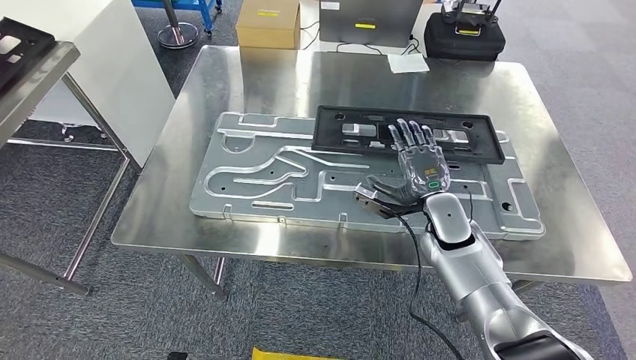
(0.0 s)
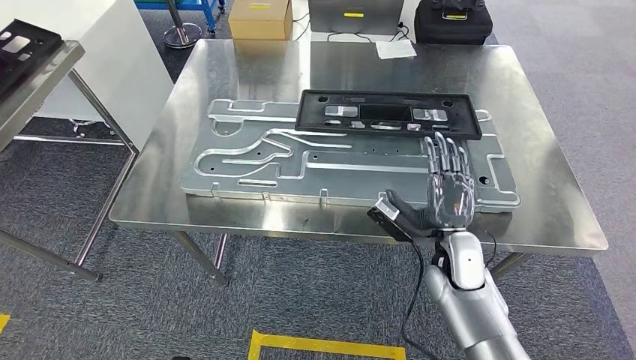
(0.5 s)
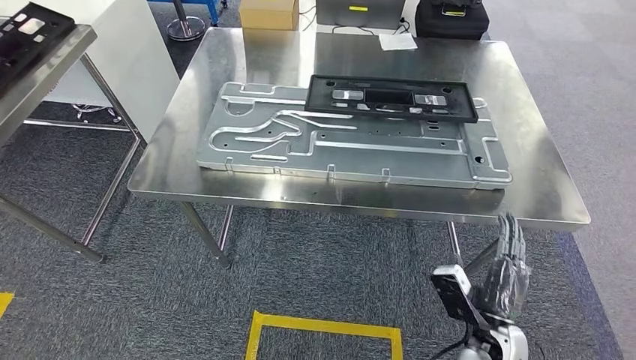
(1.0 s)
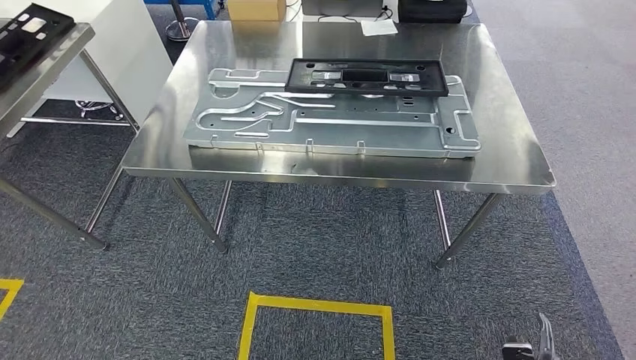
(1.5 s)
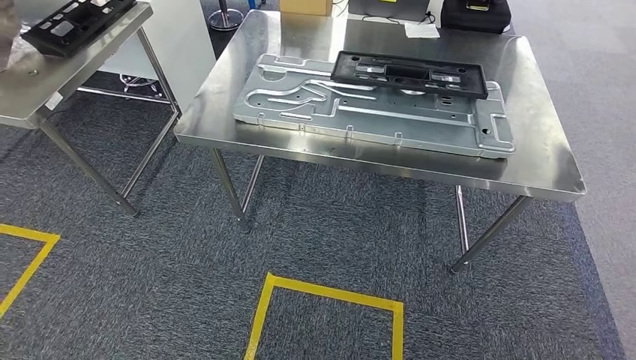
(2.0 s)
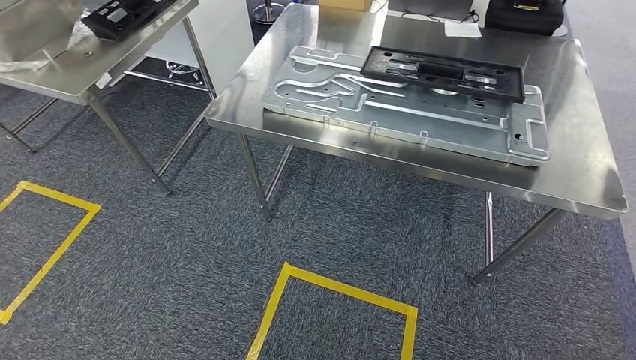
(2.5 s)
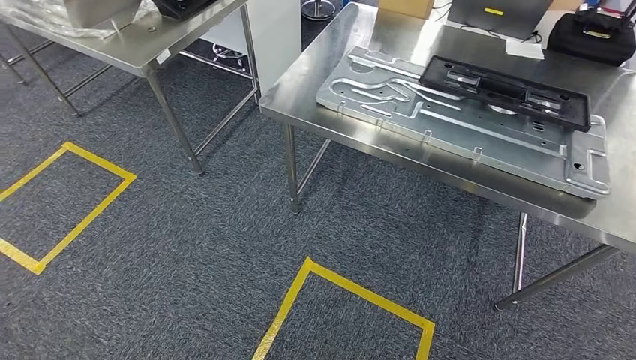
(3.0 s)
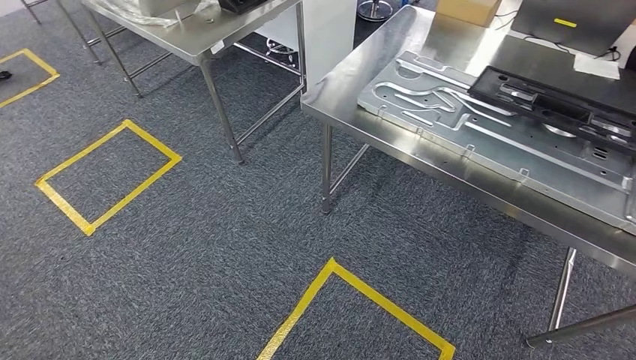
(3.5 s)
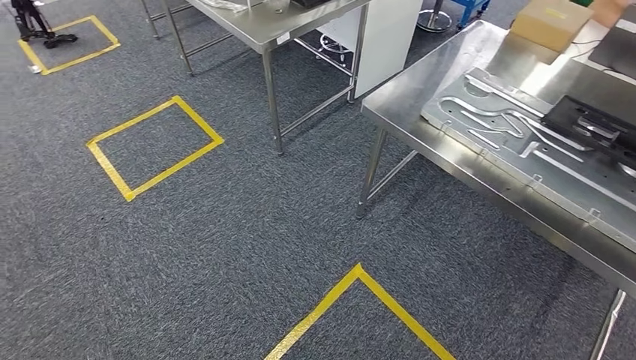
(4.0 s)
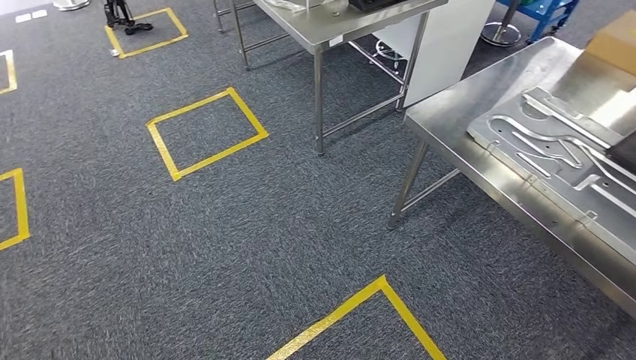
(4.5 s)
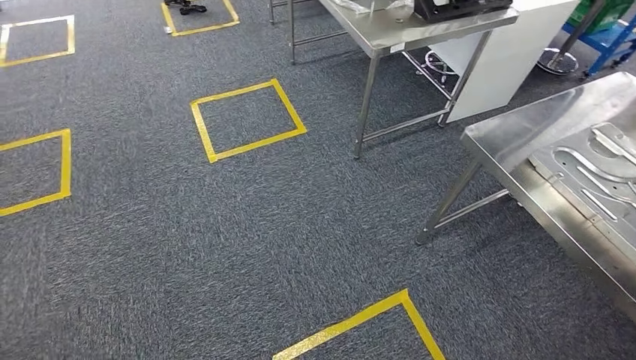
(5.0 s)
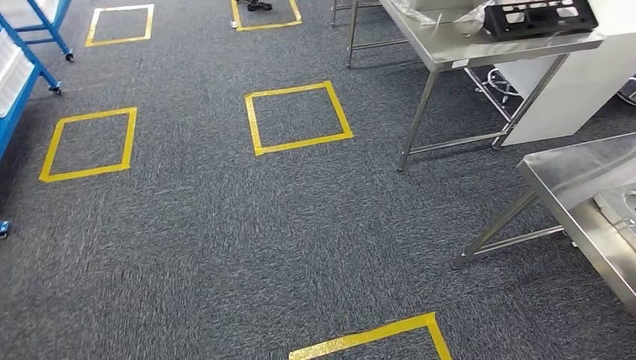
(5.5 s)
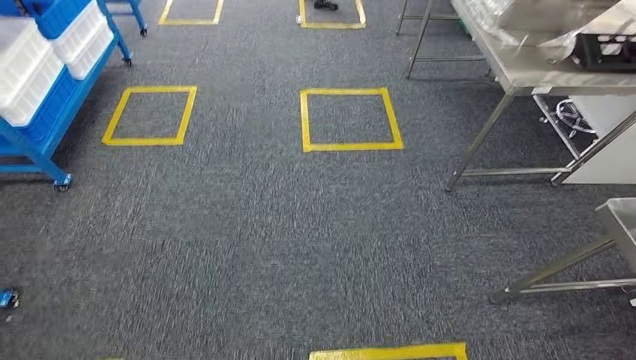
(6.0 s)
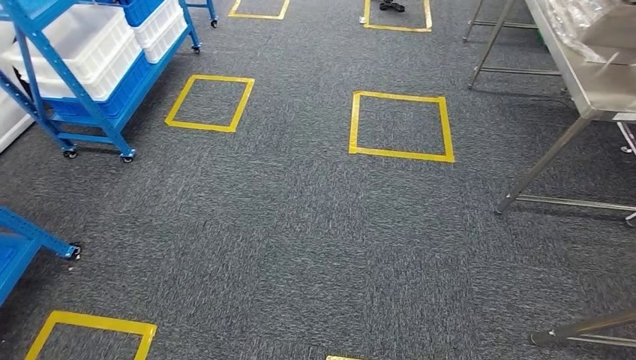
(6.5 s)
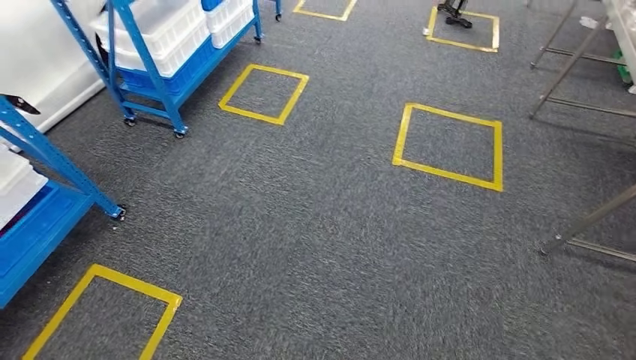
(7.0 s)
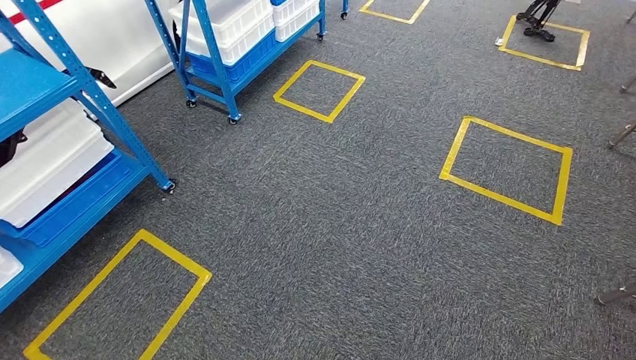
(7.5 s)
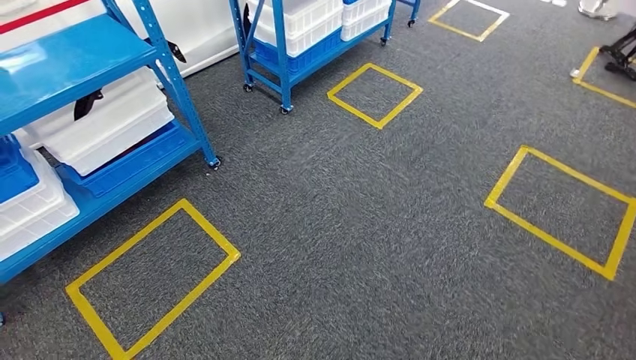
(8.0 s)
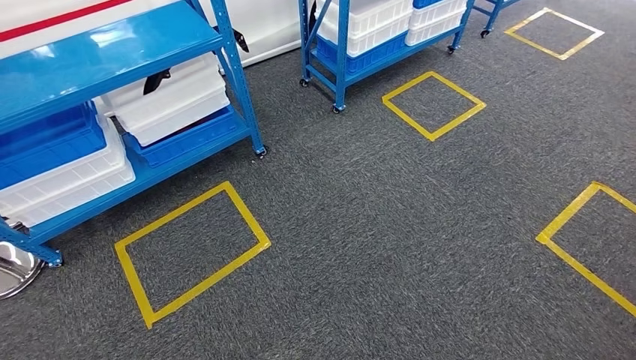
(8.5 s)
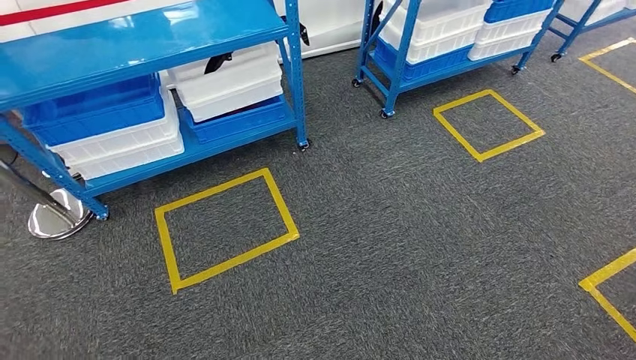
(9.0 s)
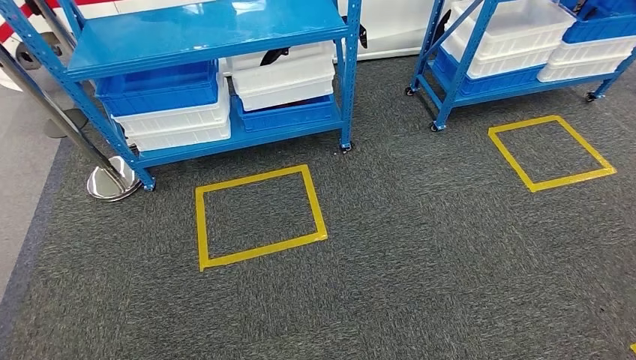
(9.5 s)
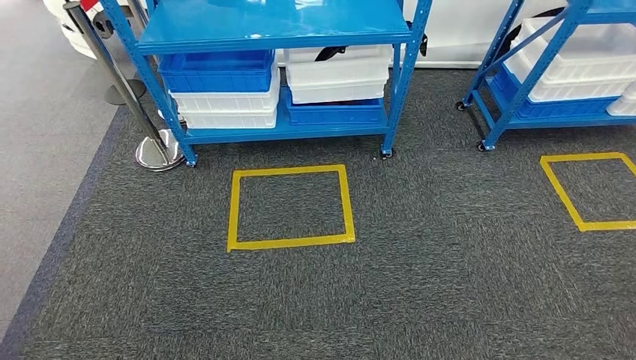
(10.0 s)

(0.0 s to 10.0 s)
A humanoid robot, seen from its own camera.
Step, 0.0 s - 2.5 s: Insert the large material into the corresponding slot on the workbench.

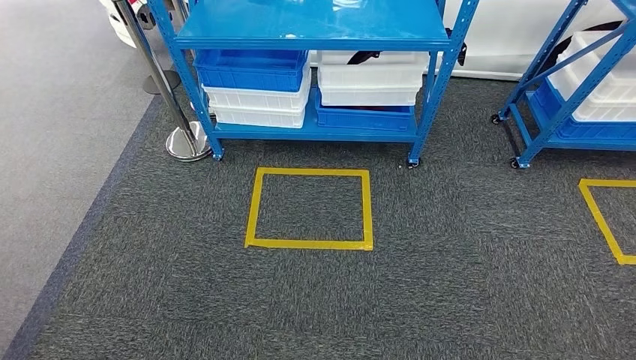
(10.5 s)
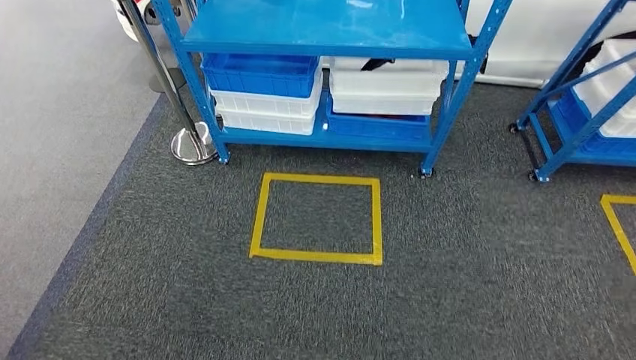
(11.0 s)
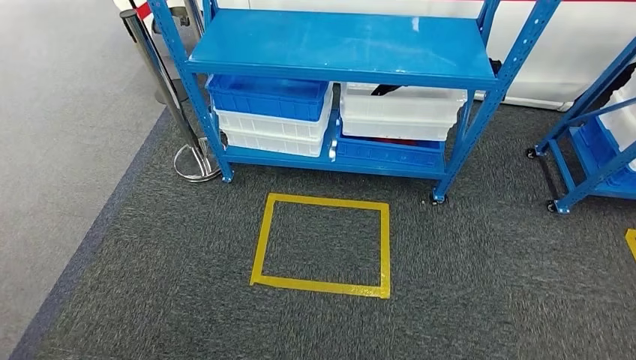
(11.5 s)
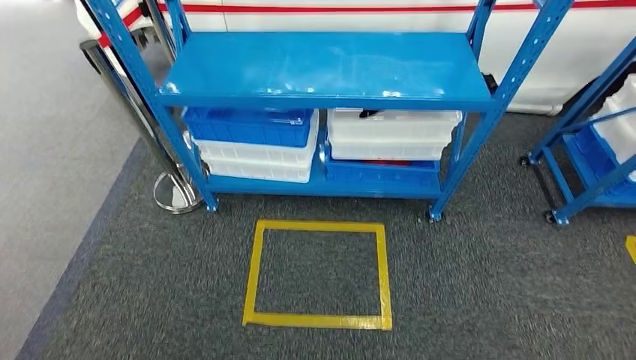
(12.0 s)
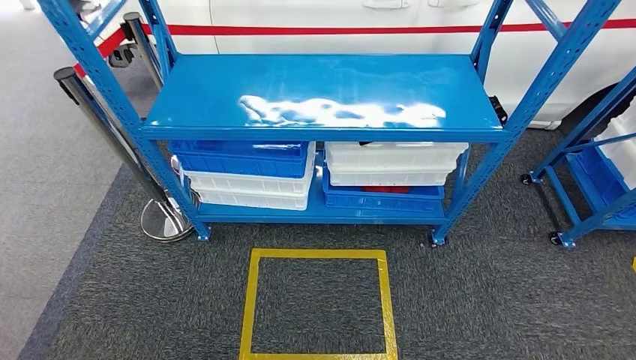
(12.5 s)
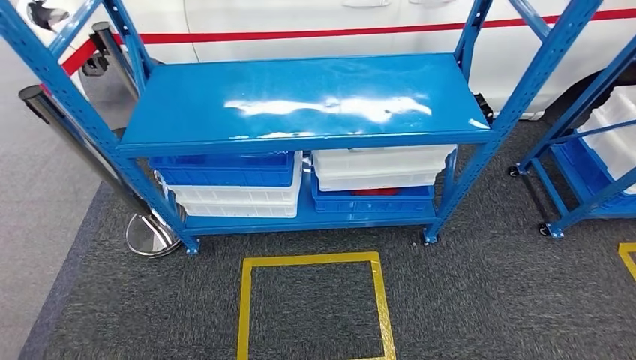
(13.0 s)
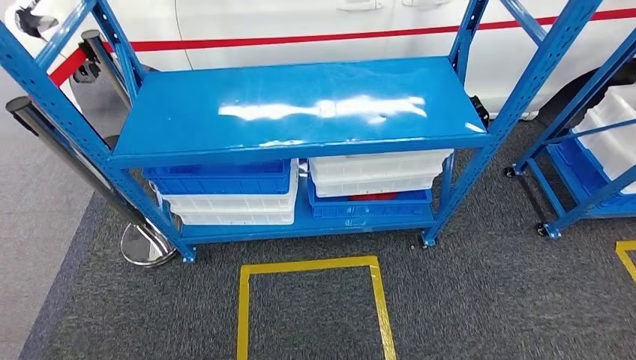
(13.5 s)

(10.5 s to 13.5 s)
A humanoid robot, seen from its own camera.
Step, 10.5 s - 13.5 s: Move to the initial position of the shelf.
